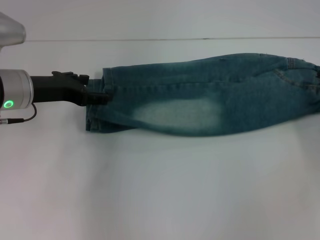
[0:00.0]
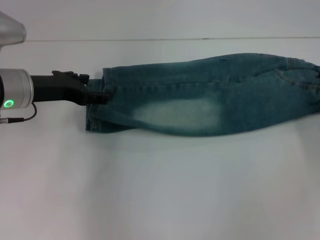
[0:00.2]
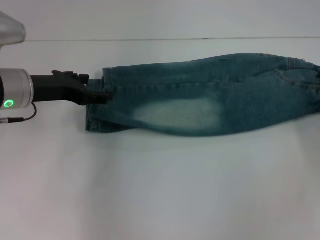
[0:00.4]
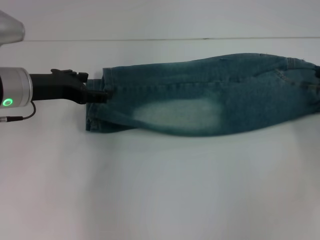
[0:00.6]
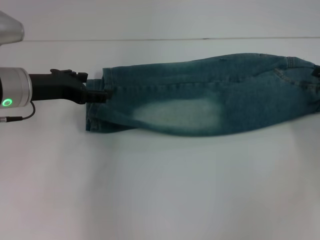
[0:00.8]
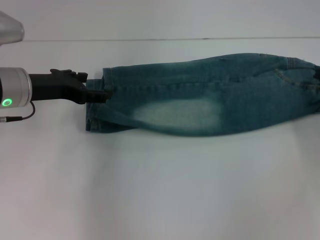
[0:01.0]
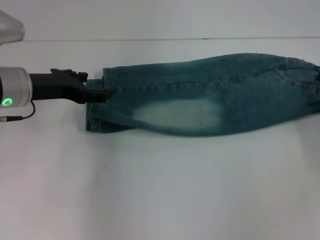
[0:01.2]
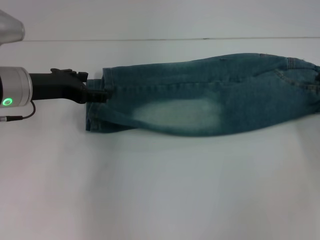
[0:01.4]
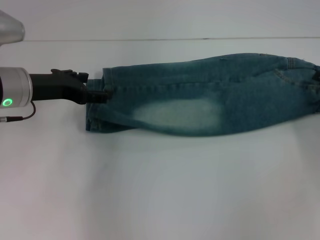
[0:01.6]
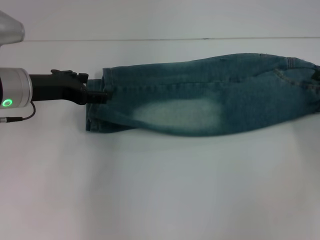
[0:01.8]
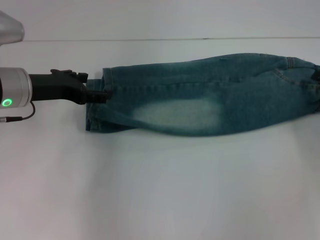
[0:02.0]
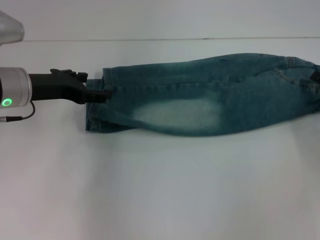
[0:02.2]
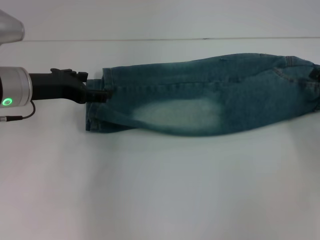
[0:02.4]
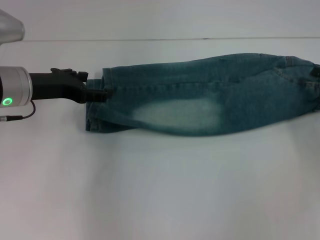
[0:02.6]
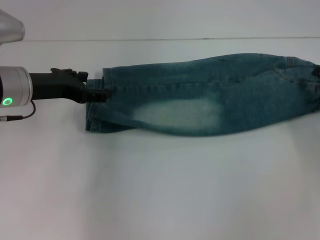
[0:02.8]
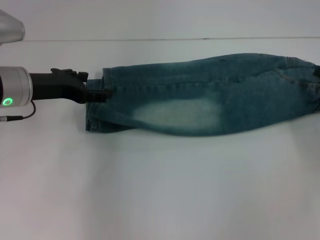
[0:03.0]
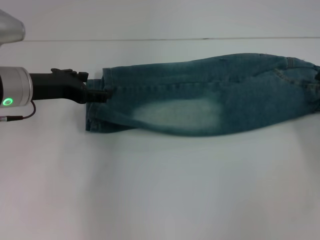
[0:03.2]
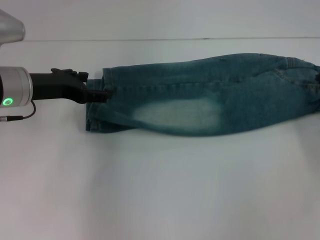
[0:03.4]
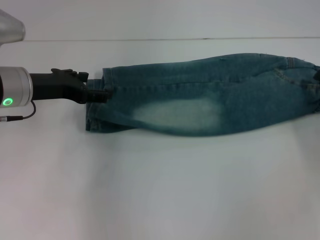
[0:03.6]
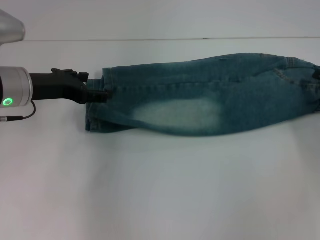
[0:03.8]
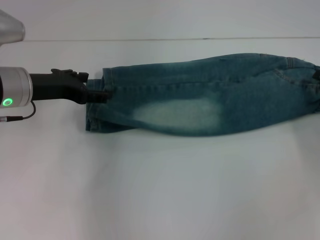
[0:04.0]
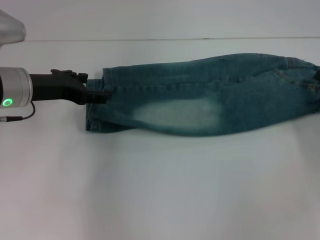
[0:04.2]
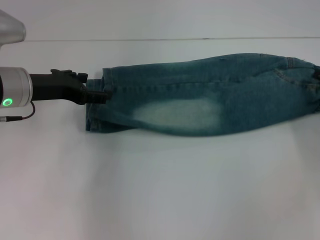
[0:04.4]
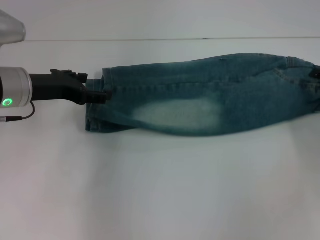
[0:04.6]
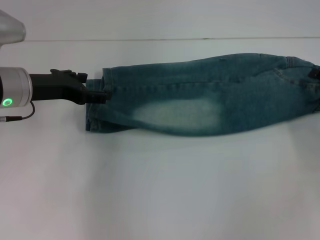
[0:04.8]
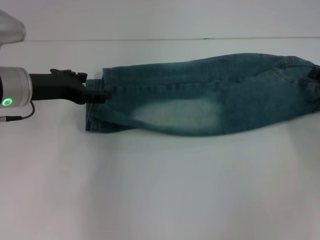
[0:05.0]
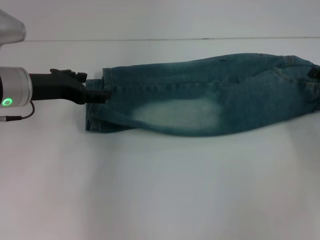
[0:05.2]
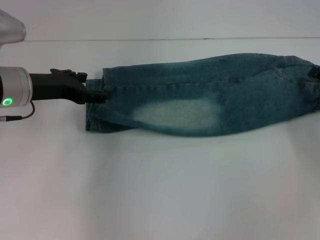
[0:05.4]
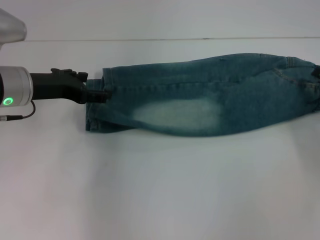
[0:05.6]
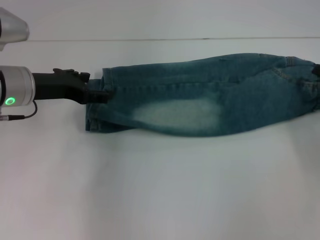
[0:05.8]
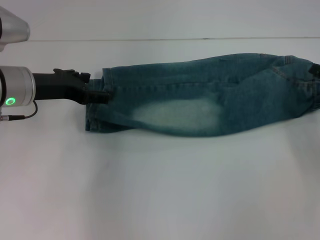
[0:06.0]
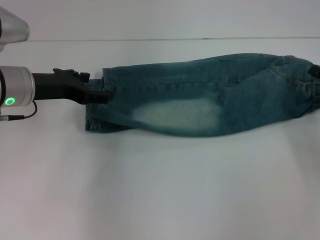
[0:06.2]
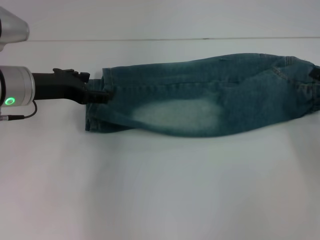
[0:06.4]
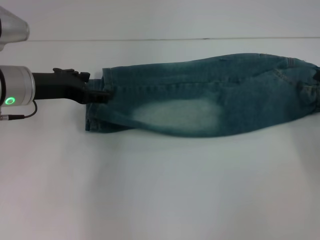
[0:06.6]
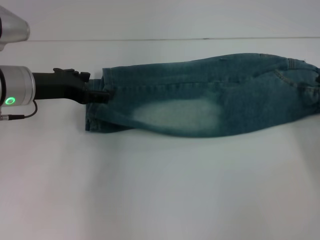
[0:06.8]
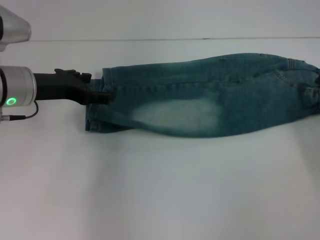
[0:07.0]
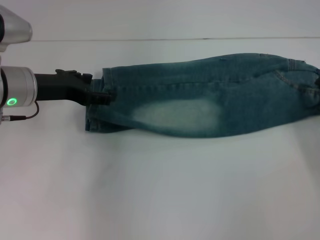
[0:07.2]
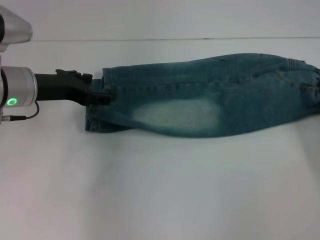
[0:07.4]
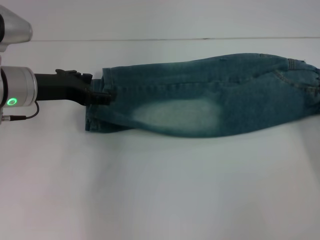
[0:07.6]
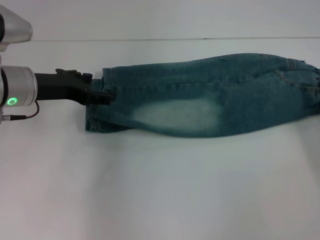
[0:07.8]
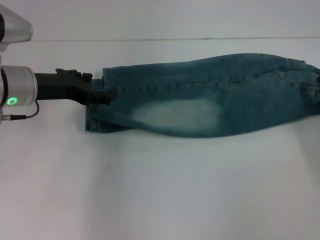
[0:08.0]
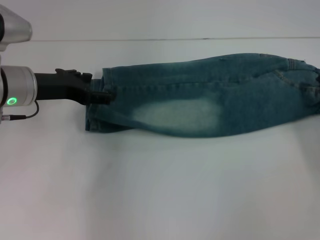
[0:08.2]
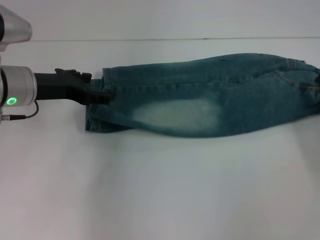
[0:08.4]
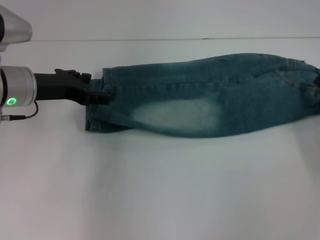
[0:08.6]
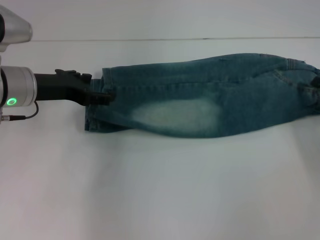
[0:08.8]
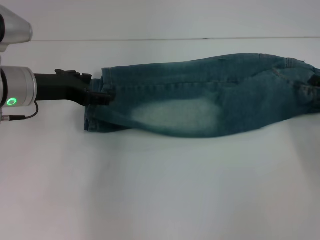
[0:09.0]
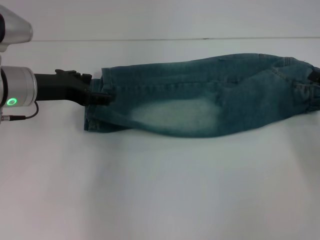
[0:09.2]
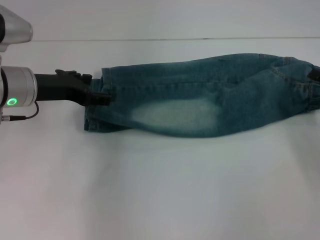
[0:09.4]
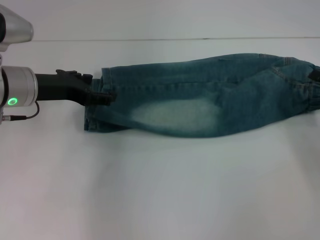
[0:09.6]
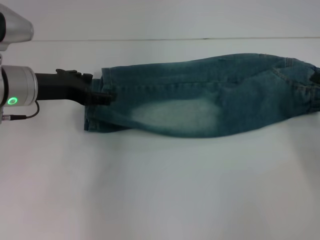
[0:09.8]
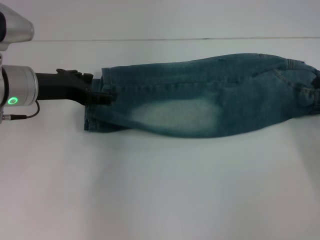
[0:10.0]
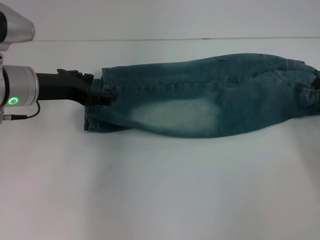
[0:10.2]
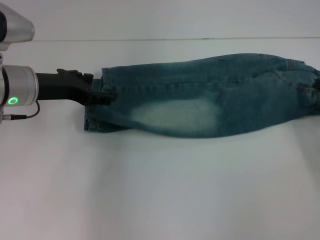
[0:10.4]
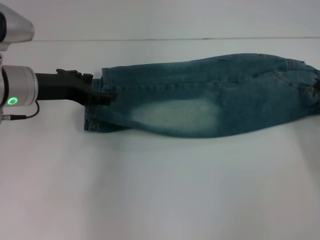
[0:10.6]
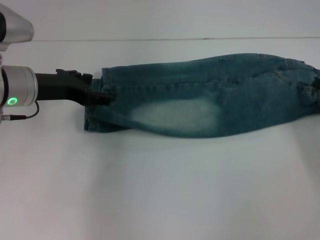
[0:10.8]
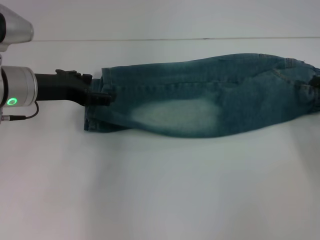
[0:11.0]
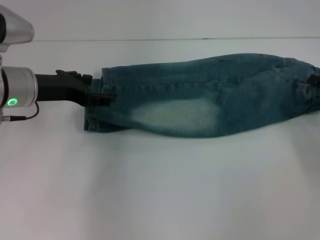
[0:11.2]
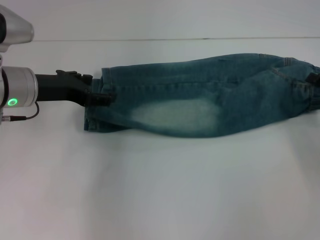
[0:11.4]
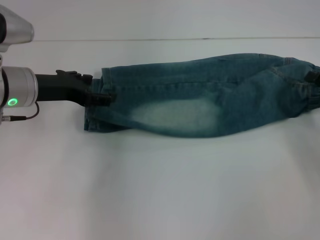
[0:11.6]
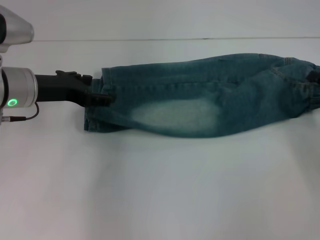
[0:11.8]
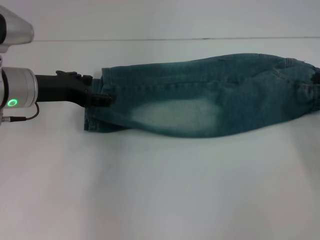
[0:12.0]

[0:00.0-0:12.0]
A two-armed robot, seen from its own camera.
0:00.0 to 0:03.0: Both grippers stay about where they are.
0:03.0 to 0:04.4: Both grippers stay put.
0:04.4 to 0:07.6: The grippers make only small movements.
0:09.0 to 0:10.4: The two grippers keep their place.
0:10.4 to 0:12.0: The grippers stay close to where they were, moving slightly.

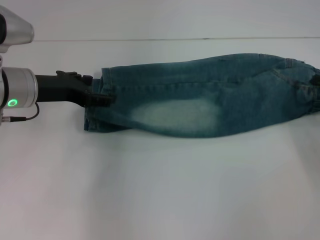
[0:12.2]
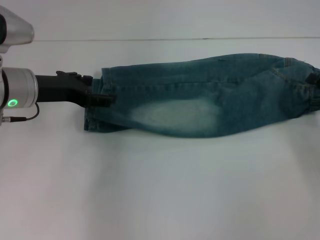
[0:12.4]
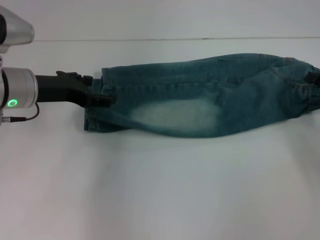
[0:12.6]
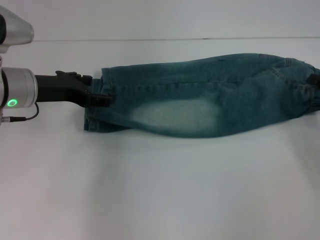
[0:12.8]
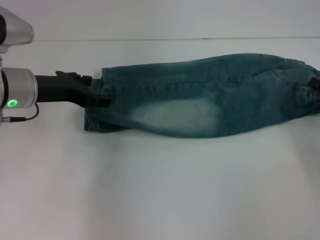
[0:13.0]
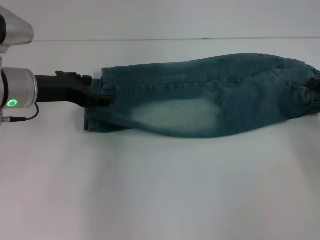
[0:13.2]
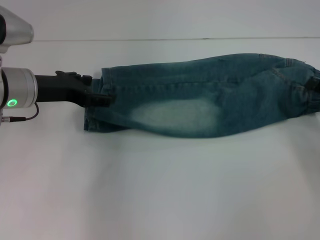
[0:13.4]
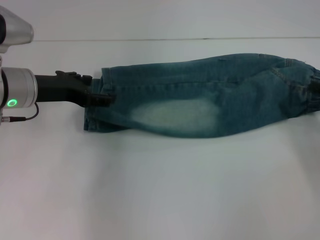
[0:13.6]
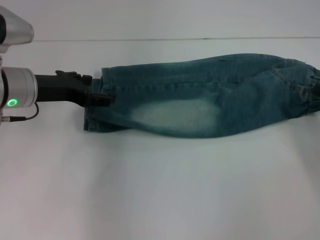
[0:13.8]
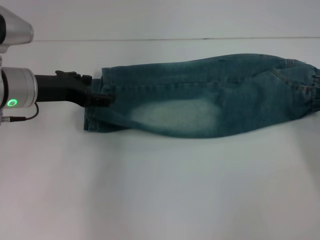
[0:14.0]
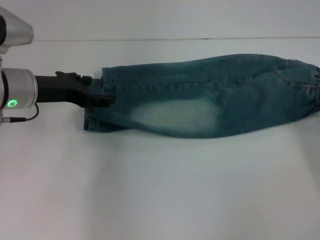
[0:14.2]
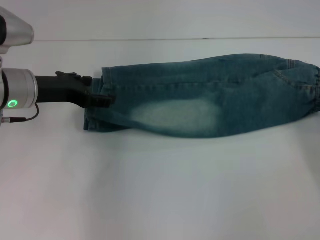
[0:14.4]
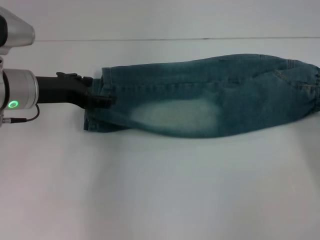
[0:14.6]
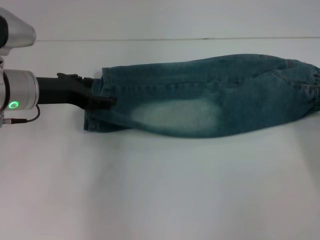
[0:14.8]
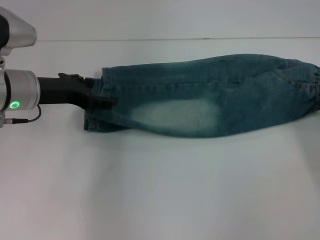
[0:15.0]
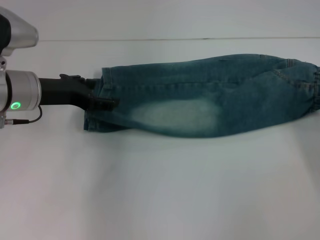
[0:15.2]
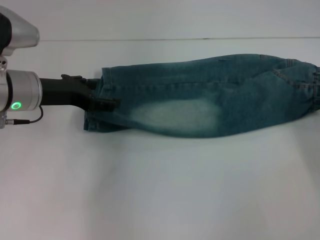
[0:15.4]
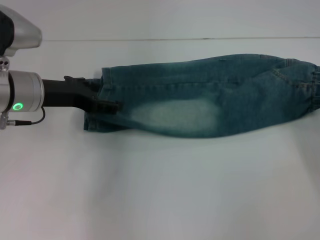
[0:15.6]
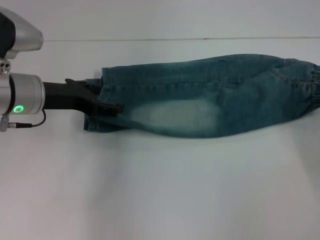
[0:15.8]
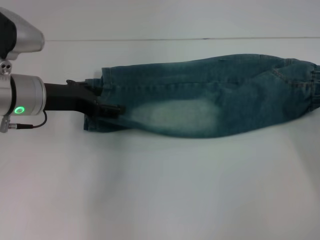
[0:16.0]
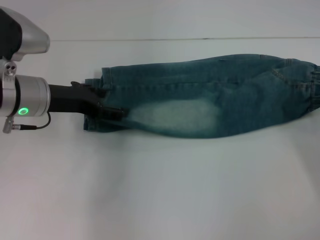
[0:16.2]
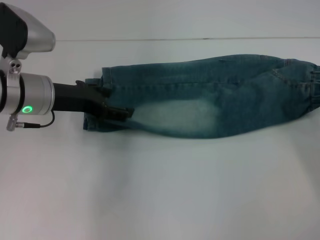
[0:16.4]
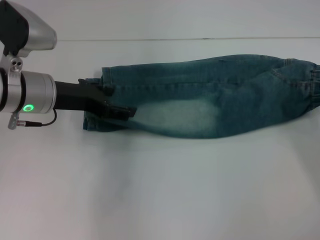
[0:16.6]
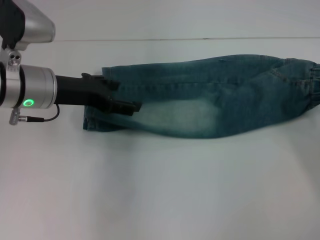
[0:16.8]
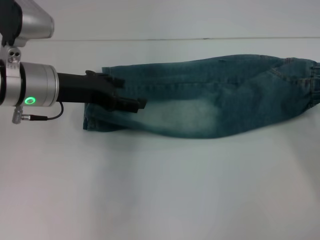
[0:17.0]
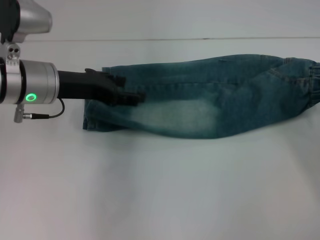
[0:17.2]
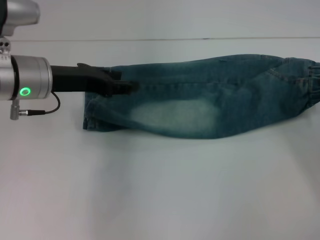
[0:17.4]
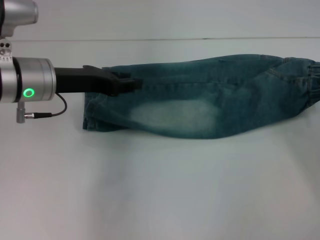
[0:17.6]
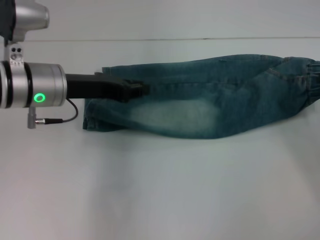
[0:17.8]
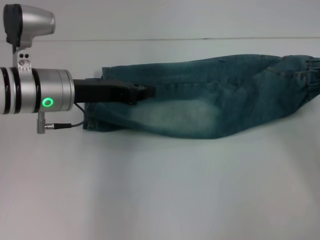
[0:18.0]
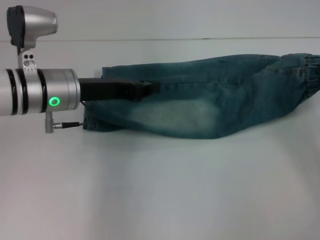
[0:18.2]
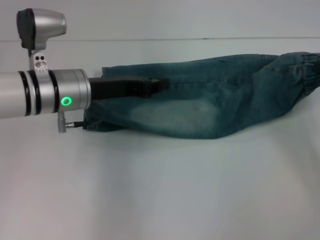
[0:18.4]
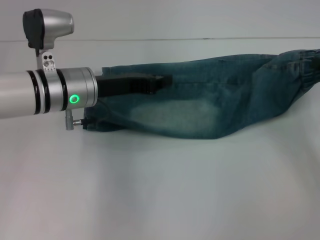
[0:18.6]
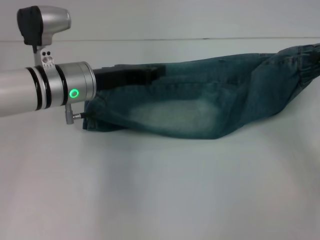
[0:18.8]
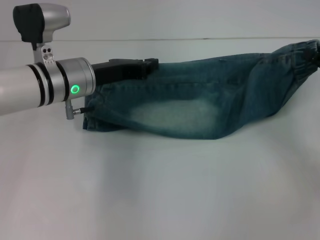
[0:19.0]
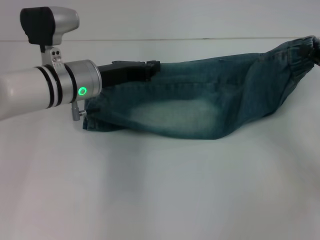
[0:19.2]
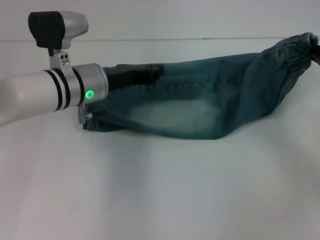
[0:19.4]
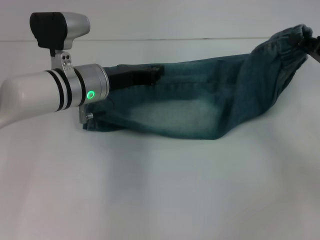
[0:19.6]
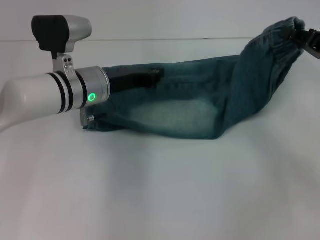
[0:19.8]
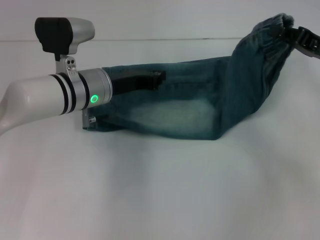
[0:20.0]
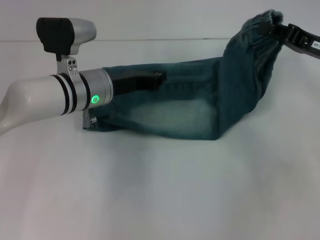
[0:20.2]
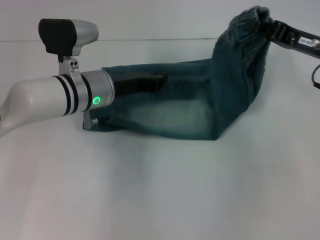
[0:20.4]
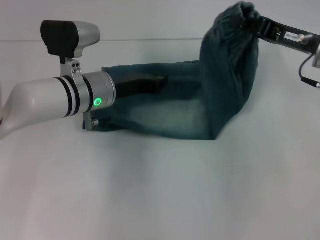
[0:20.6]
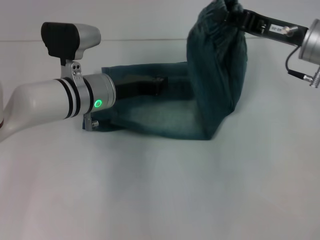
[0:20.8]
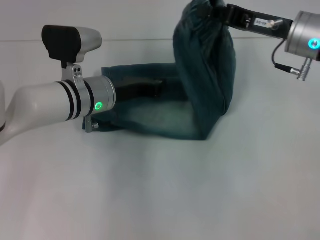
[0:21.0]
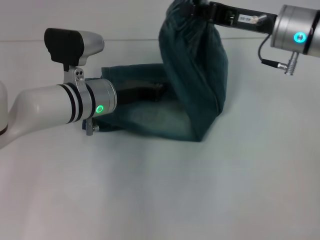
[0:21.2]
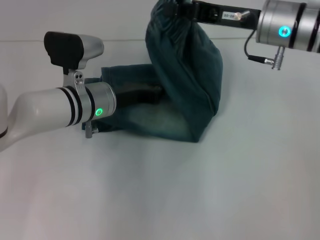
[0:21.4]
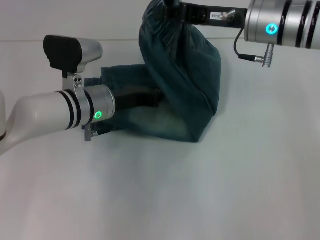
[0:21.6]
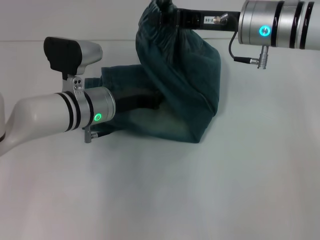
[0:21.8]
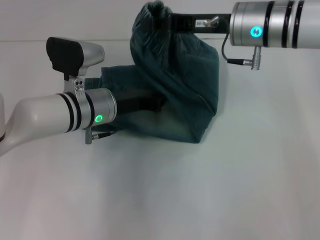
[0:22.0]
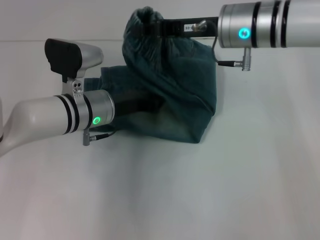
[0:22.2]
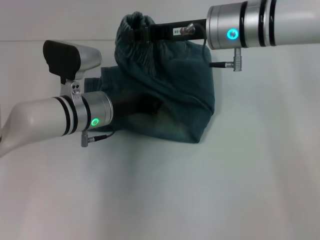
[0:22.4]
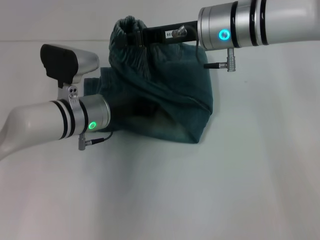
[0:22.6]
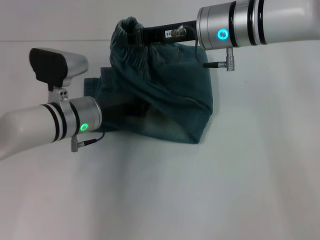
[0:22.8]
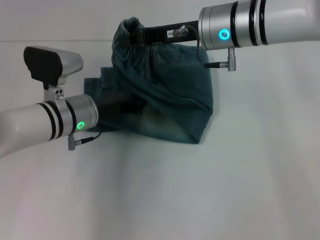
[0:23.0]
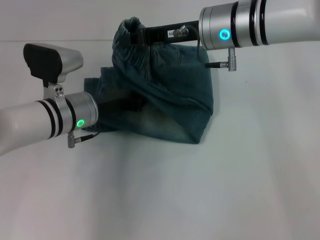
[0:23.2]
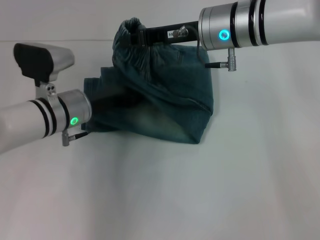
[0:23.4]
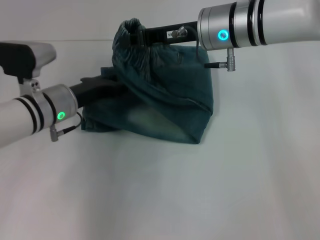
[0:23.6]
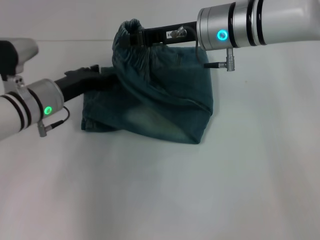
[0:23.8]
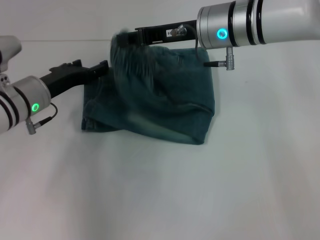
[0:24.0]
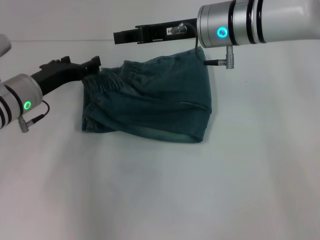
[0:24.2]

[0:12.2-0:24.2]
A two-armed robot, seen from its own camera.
Step, 0:12.2 to 0:15.6: Grab the waistband with your right hand.
Step, 0:15.8 to 0:22.8: Press the middle of the pants with your left hand.
Step, 0:23.2 to 0:24.0: Fold to the left with your right hand.
0:15.2 to 0:16.6: The grippers move only a little.
0:16.6 to 0:18.2: The left gripper closes.
0:18.2 to 0:19.8: The left gripper moves about 5 cm; the right gripper shifts by some 10 cm.
0:19.8 to 0:21.2: The right gripper is displaced to the left and upward by about 15 cm.
0:21.2 to 0:22.6: The right gripper goes some 10 cm to the left.
0:22.6 to 0:24.2: The left gripper goes about 10 cm to the left, and opens.
